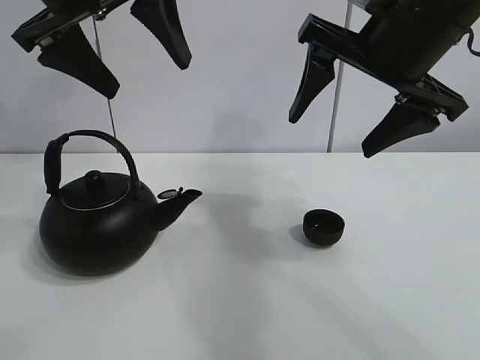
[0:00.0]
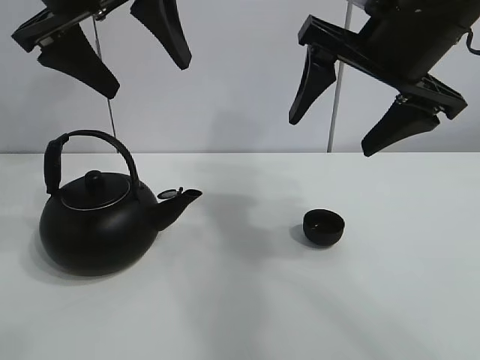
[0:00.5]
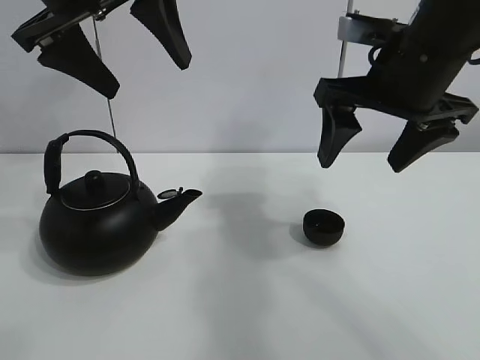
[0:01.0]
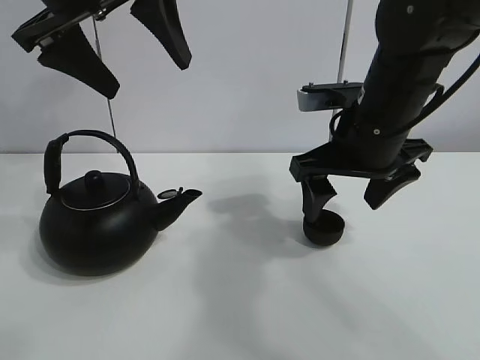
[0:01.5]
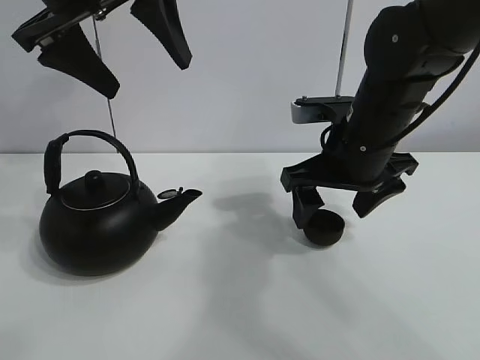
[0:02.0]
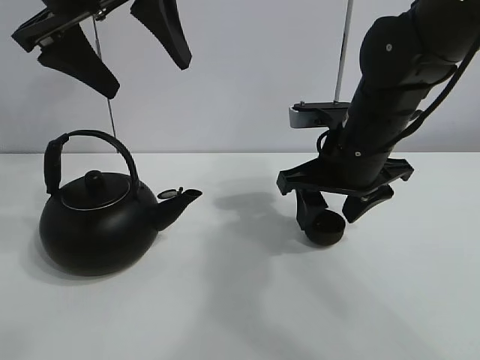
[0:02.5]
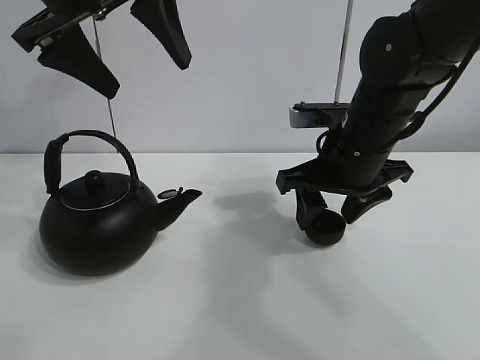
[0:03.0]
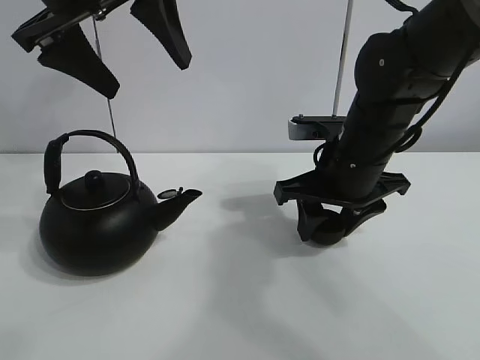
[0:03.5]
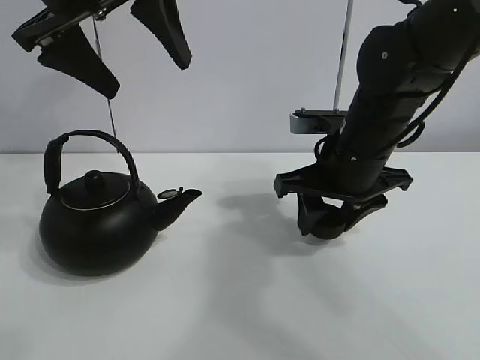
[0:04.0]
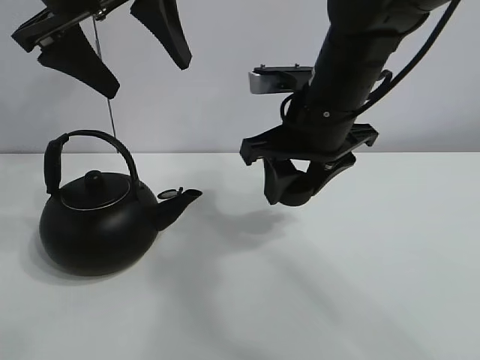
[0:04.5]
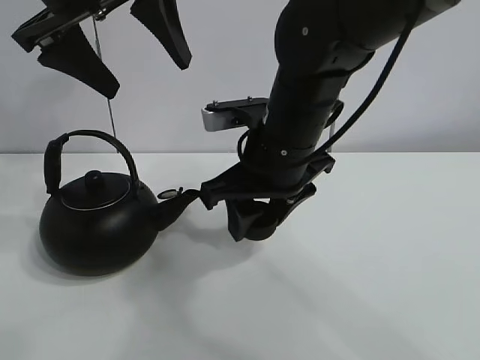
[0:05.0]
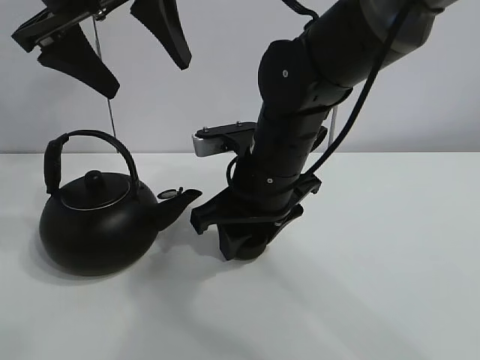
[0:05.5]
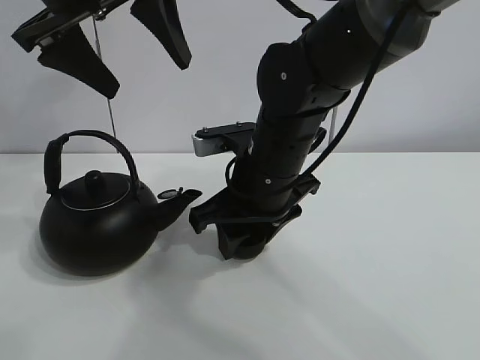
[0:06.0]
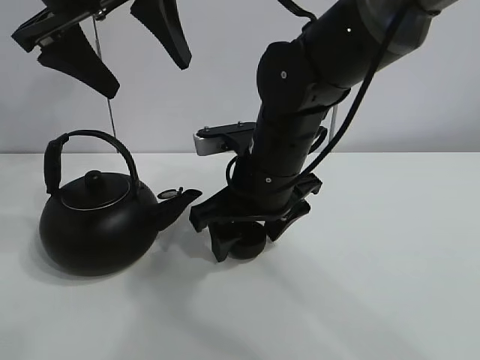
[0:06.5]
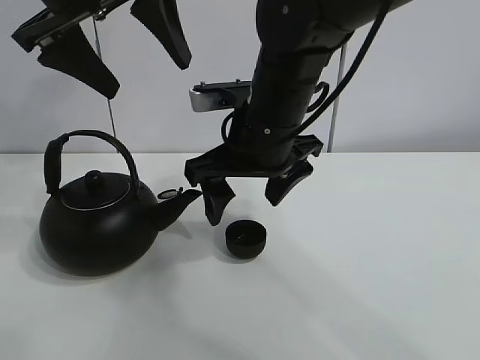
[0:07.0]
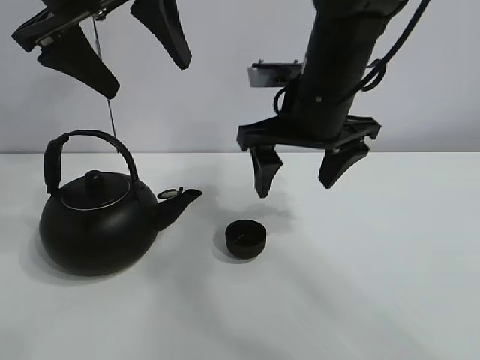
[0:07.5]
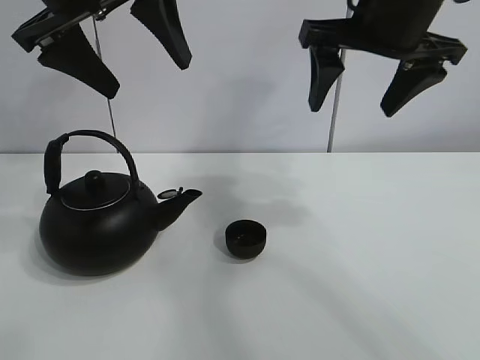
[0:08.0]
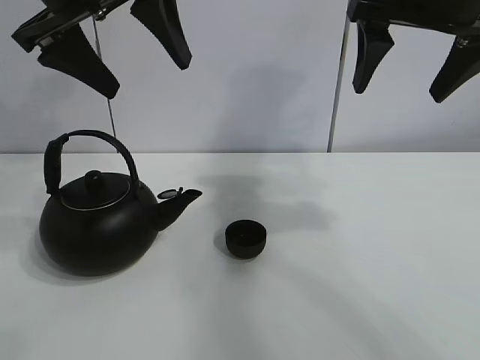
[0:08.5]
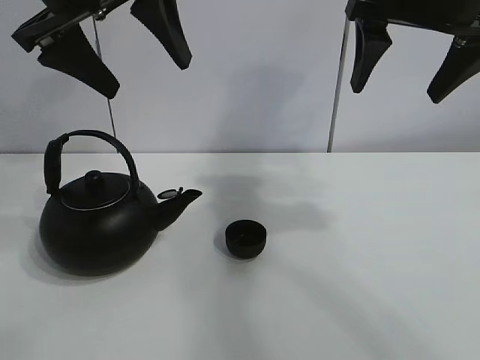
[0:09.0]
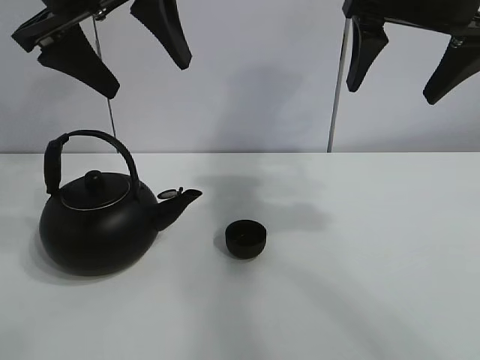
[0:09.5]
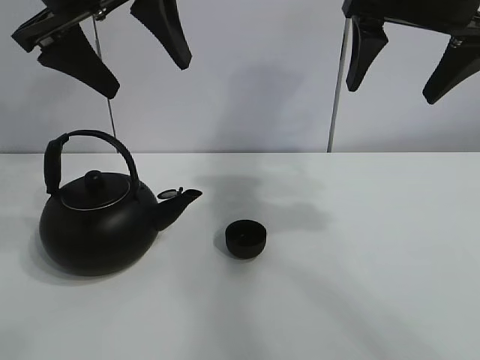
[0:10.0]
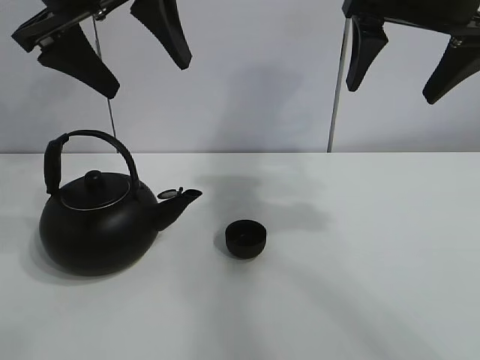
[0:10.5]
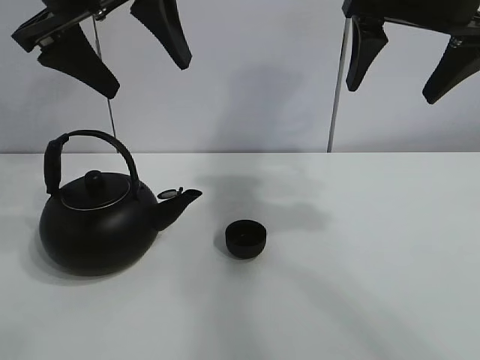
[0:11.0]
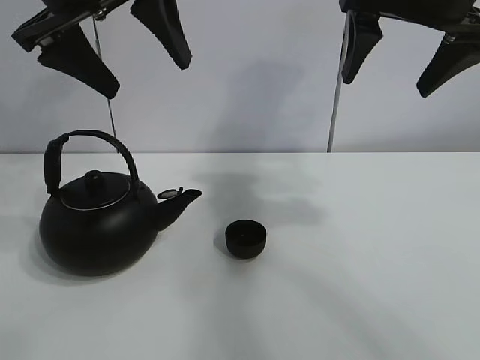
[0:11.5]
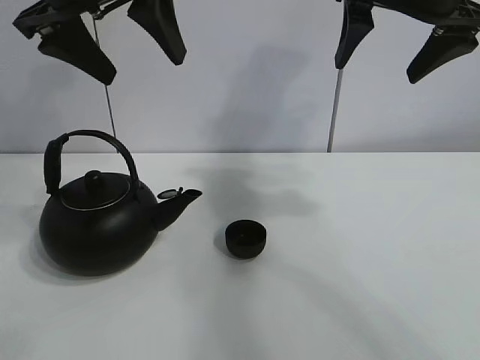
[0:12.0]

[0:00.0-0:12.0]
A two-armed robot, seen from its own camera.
Task of the whole recording: pour tea into the teacup.
Step, 0:00.0 to 0:03.5: Pick up the teacup with the right gripper.
Step, 0:04.0 to 0:06.0: Place the teacup in the center of view with the right gripper.
0:02.0 to 0:04.0: The right gripper closes up.
0:04.0 to 0:06.0: The right gripper goes approximately 10 cm to the left.
0:06.0 to 0:08.0: The right gripper moves upward and to the right, roughly 20 cm, and opens.
0:08.0 to 0:12.0: The grippers stay close to where they were, moving slightly.

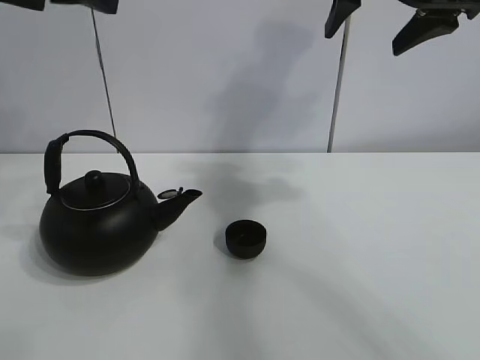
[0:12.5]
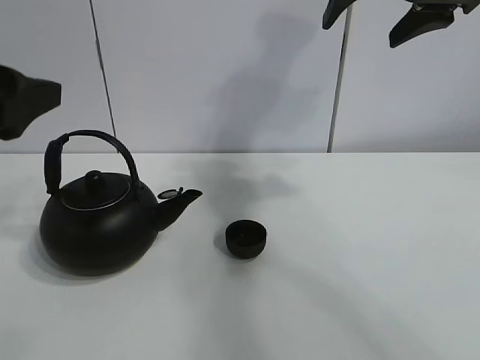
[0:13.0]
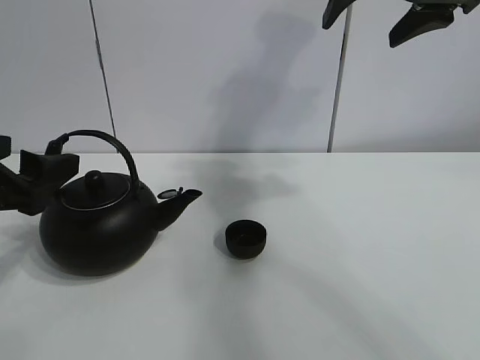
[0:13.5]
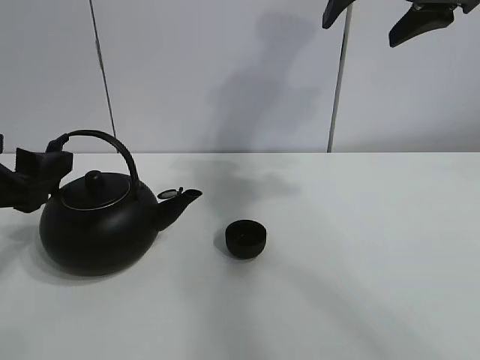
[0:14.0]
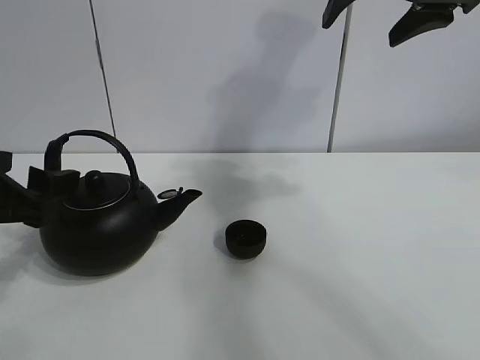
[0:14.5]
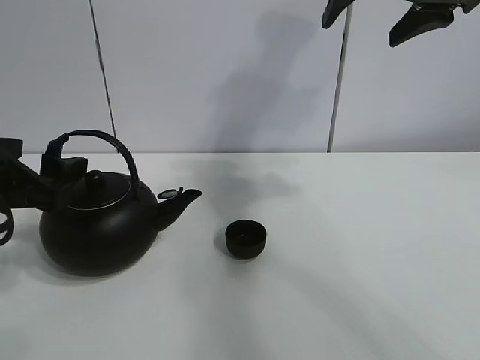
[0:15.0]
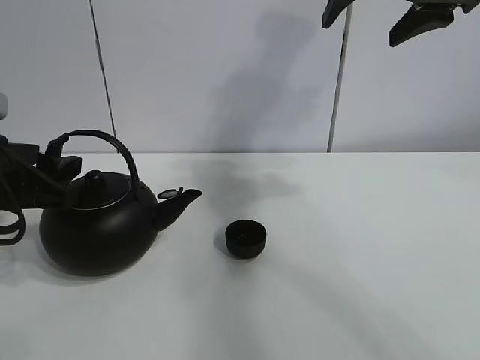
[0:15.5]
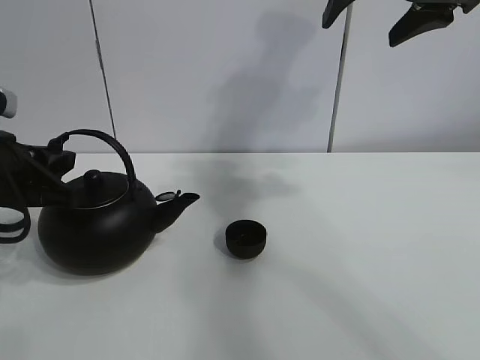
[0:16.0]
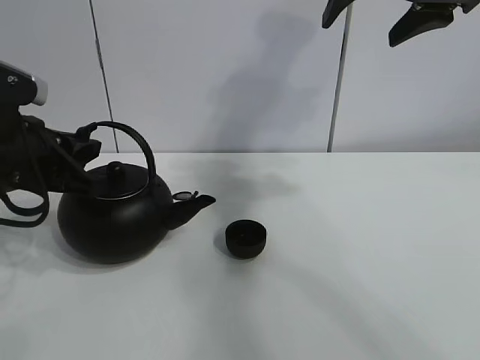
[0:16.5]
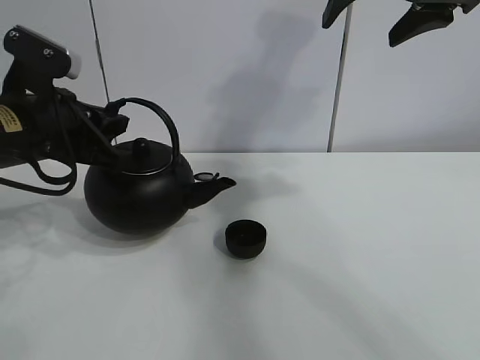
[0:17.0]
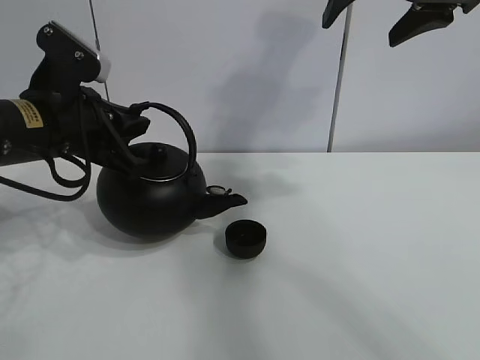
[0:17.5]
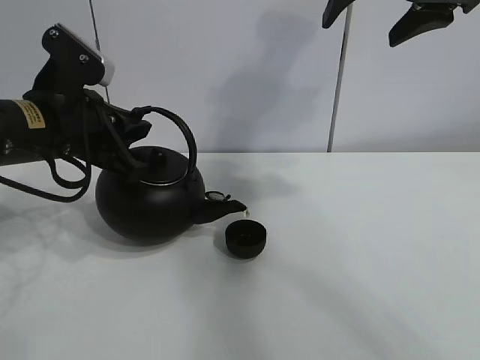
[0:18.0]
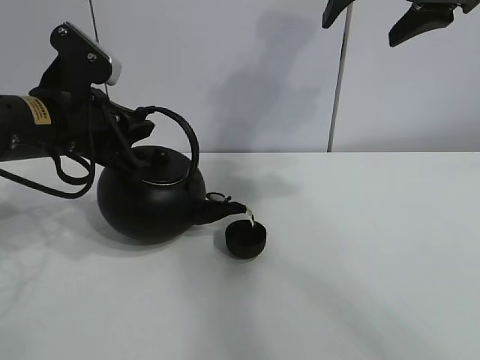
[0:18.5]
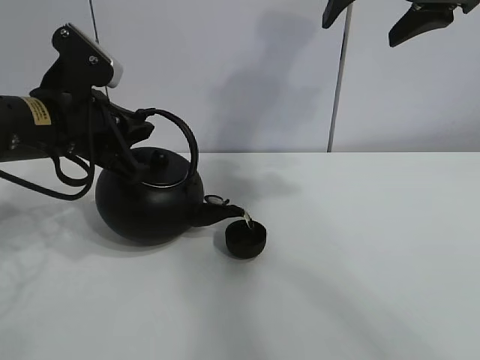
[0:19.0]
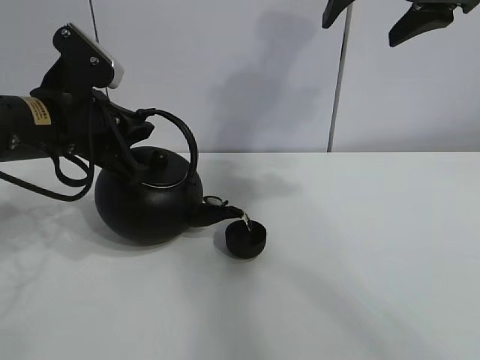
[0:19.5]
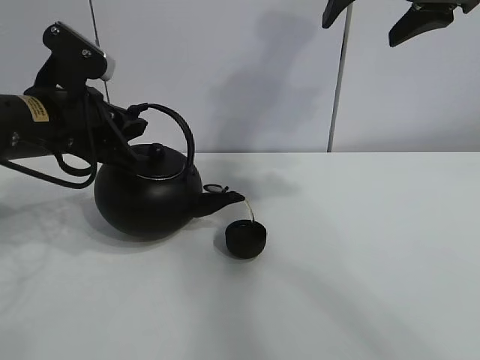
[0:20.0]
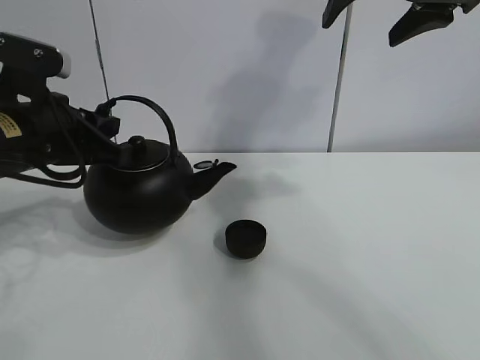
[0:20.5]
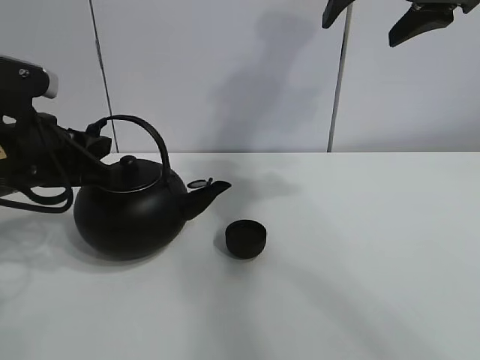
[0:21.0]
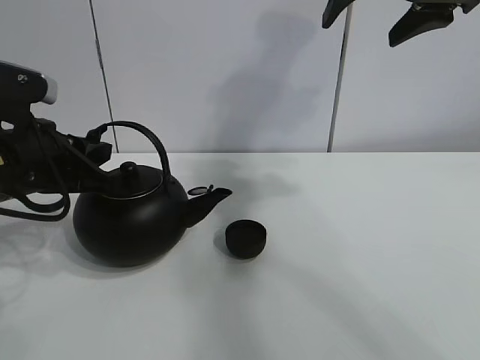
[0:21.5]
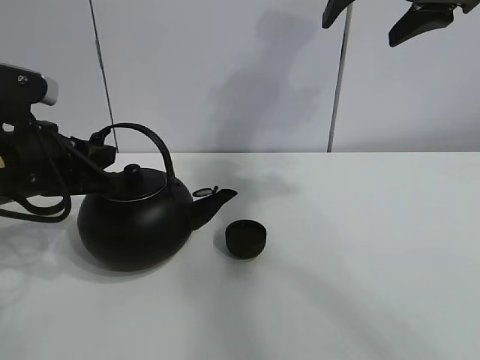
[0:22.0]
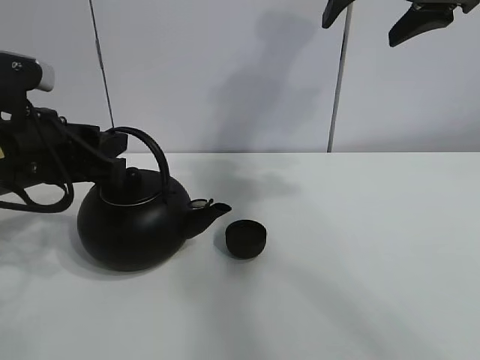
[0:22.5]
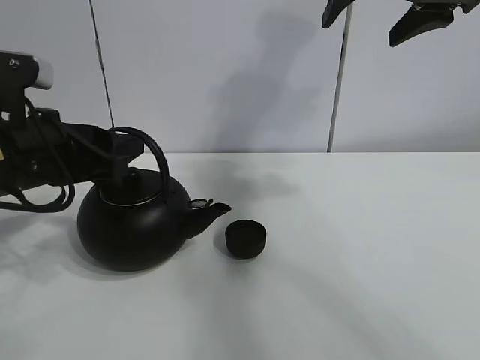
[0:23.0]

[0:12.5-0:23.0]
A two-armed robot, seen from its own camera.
Task of the whole recording: pour tea into the teacup.
Step, 0:12.5 to 0:16.0: Pick up the teapot with the left gripper.
Step, 0:16.5 to 0:20.0: Pour tea into the teacup with the left gripper.
0:12.5 to 0:14.5: The left gripper heads downward, covering some 20 cm.
0:14.5 to 0:16.5: The left gripper moves forward, about 5 cm, and closes.
0:16.5 to 0:19.0: The left gripper moves some 5 cm.
0:21.0 to 0:23.0: The left gripper opens its fingers.

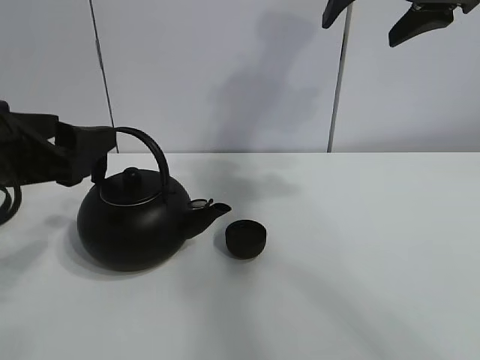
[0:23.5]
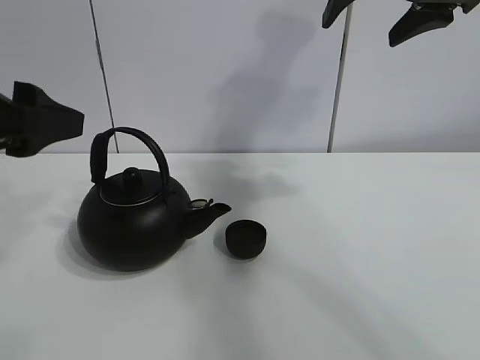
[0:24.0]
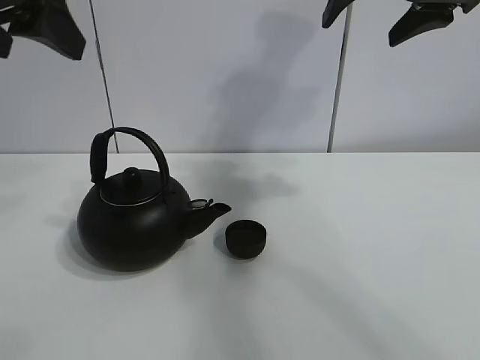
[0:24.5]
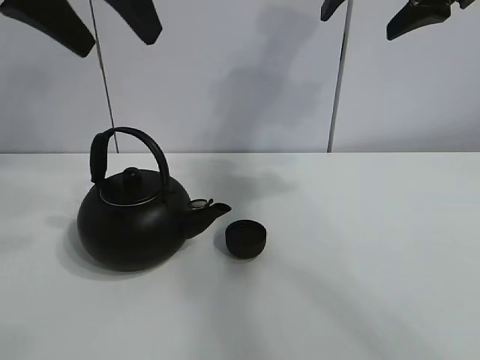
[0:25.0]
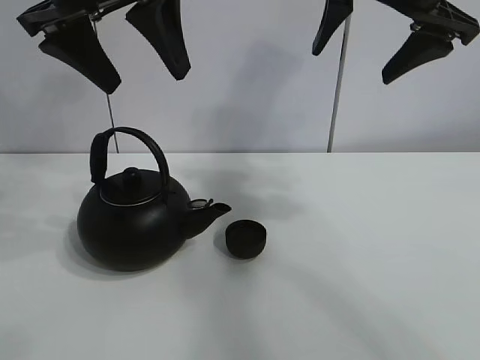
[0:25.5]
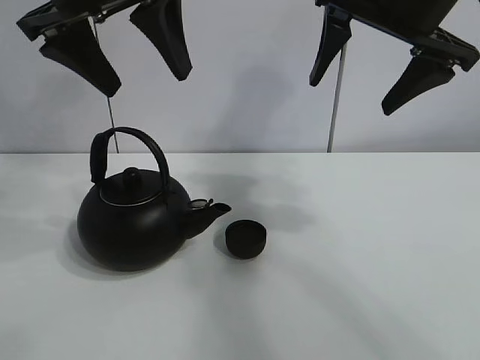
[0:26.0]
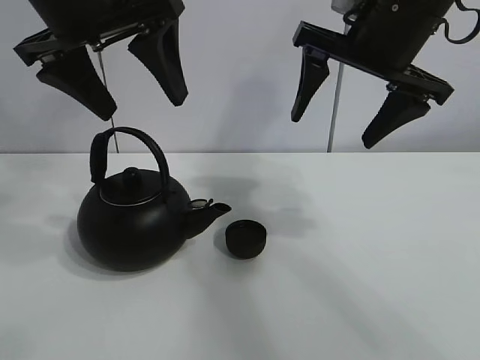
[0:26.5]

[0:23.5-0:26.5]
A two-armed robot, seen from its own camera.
Task of the whole recording: pour tea into the teacup.
0:23.5 to 0:25.0: The left gripper is displaced upward by some 20 cm.
0:25.0 to 0:26.5: The left gripper moves roughly 5 cm; the right gripper shifts roughly 5 cm downward.
